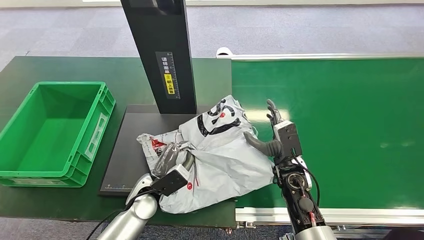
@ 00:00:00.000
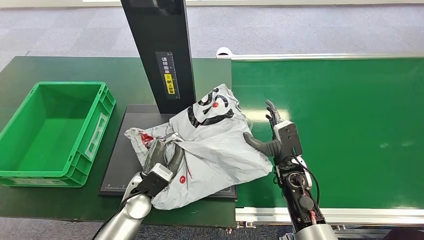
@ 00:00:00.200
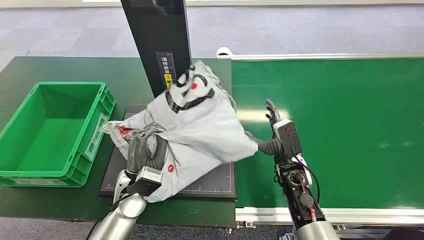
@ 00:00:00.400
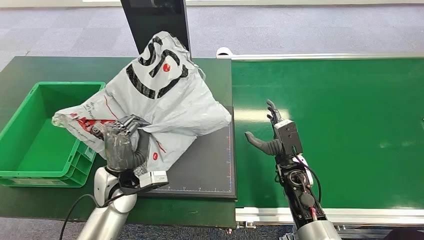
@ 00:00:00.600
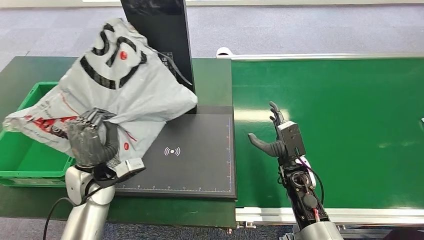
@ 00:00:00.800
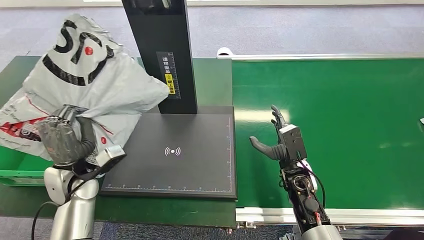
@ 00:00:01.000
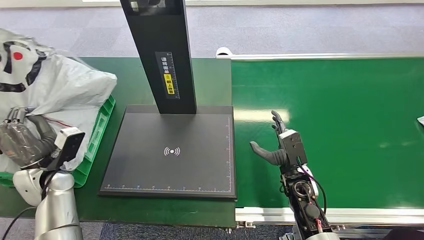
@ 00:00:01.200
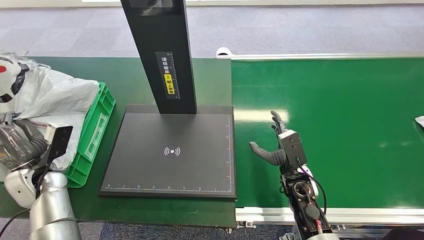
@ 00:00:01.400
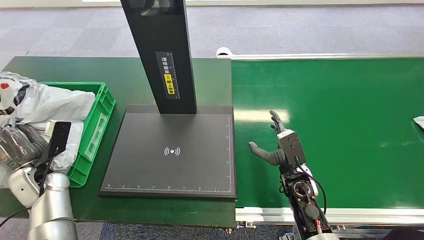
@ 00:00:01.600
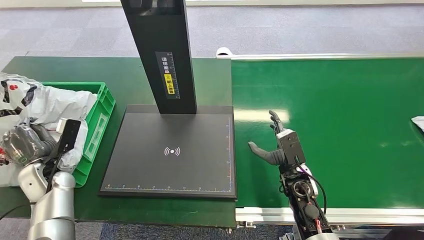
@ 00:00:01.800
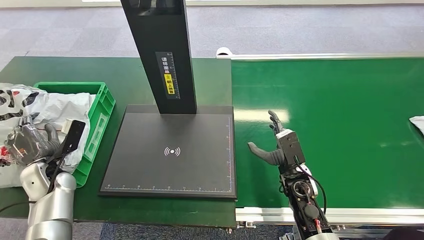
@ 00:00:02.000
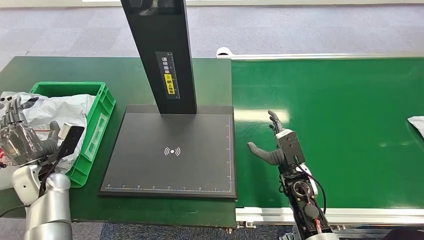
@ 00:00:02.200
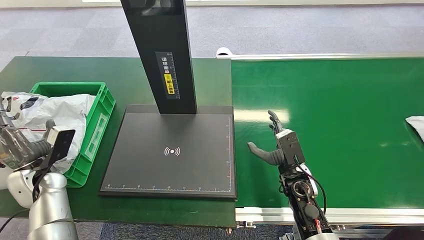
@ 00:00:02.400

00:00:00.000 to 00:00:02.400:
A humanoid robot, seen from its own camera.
Step, 00:00:00.800 to 00:00:02.400: Place the package into the parcel locker.
